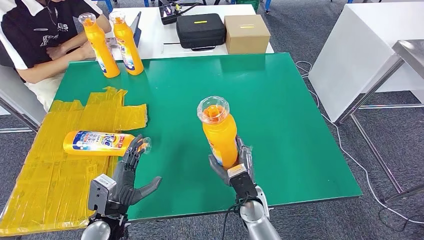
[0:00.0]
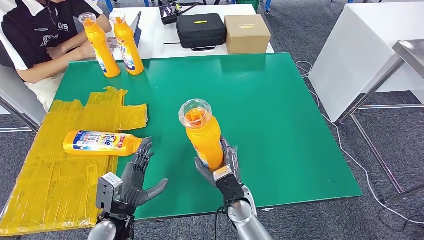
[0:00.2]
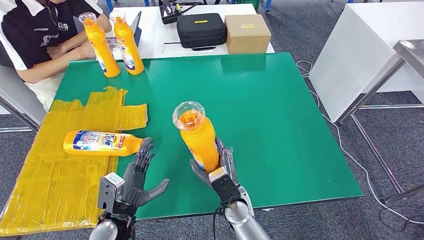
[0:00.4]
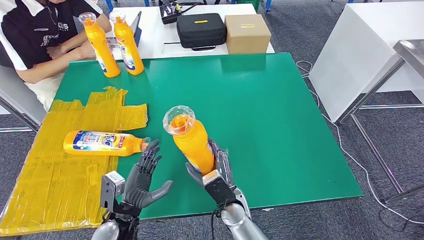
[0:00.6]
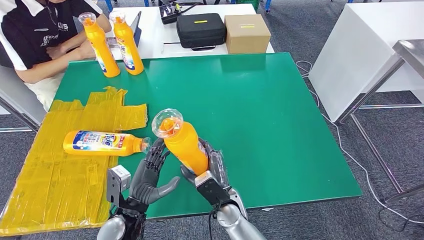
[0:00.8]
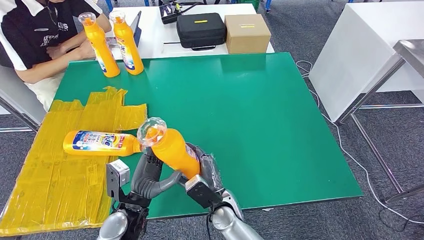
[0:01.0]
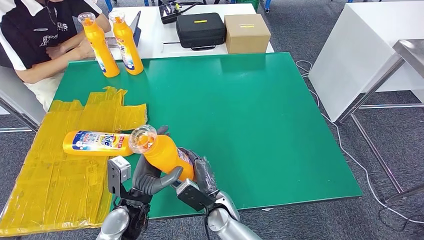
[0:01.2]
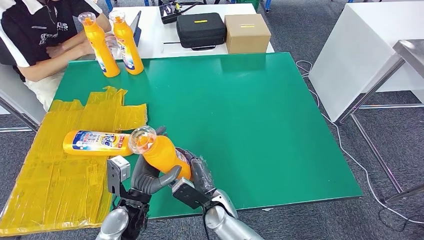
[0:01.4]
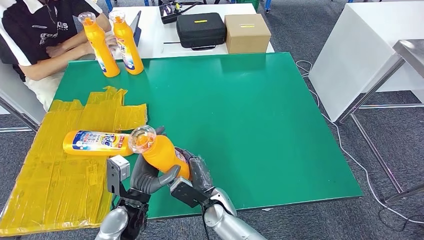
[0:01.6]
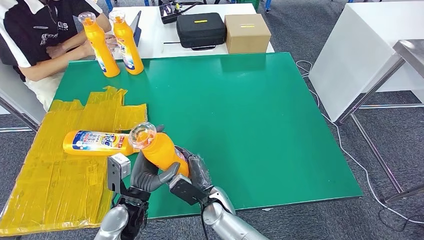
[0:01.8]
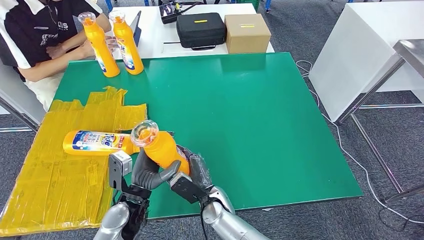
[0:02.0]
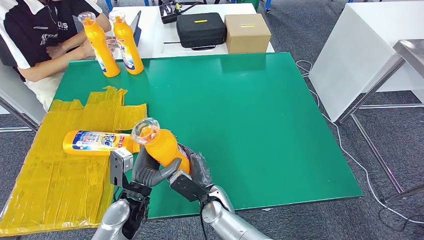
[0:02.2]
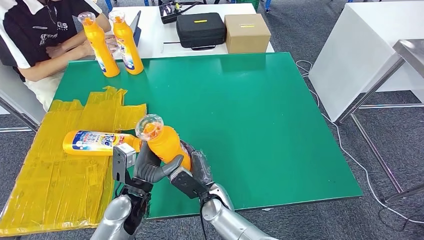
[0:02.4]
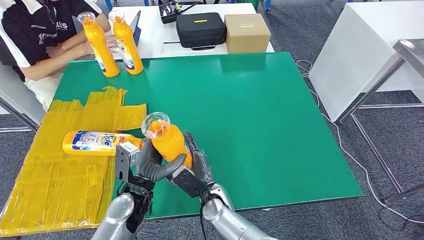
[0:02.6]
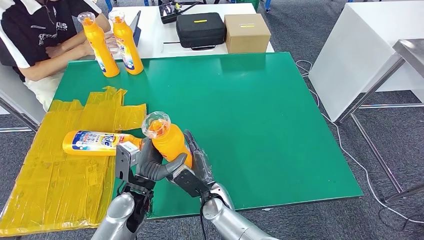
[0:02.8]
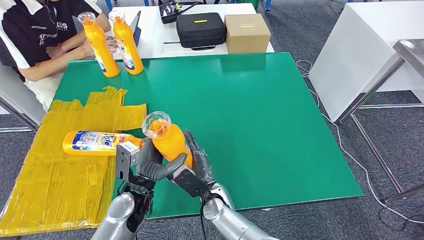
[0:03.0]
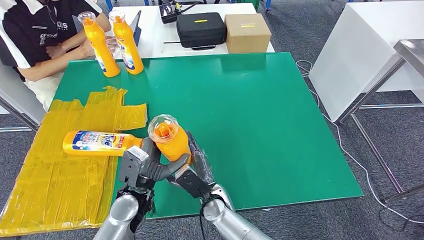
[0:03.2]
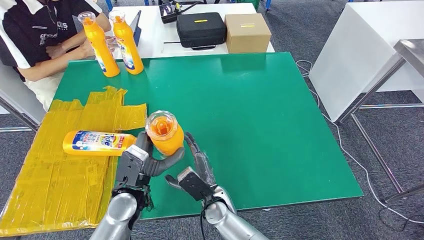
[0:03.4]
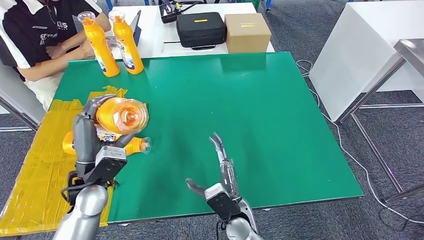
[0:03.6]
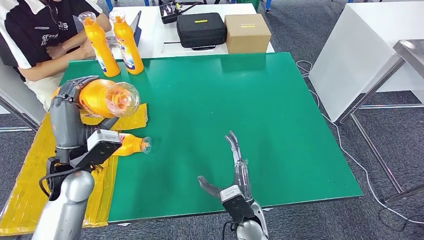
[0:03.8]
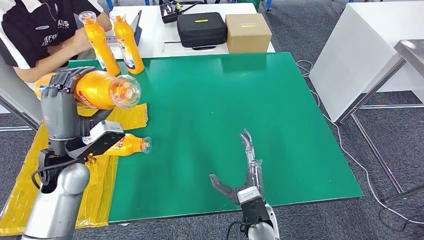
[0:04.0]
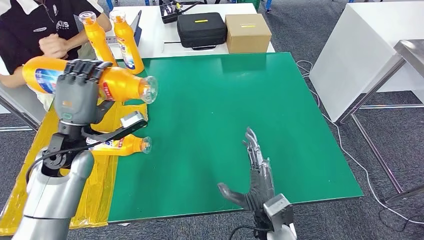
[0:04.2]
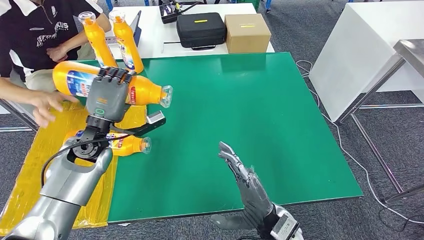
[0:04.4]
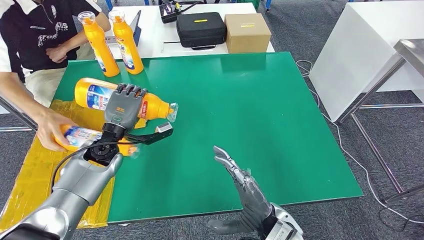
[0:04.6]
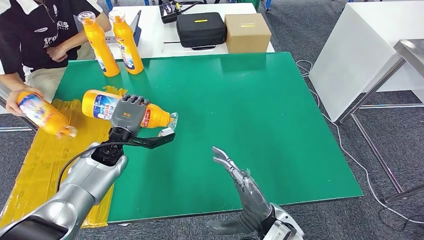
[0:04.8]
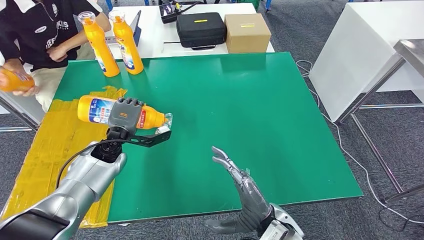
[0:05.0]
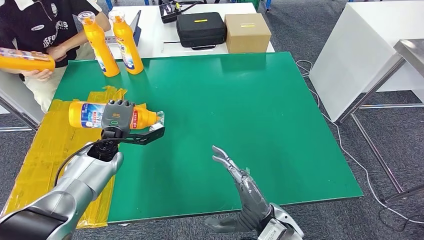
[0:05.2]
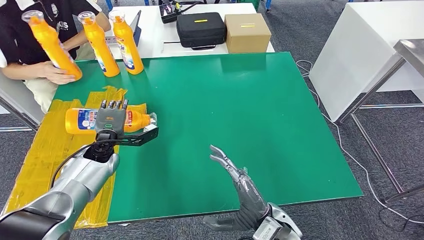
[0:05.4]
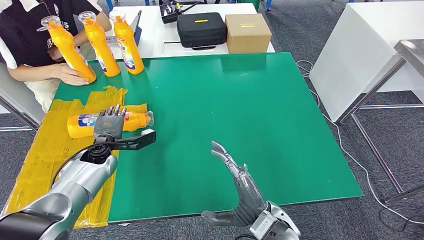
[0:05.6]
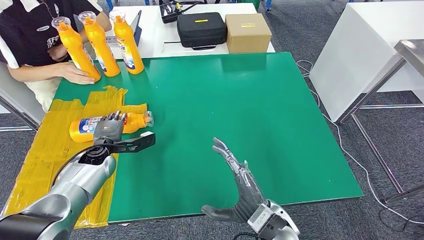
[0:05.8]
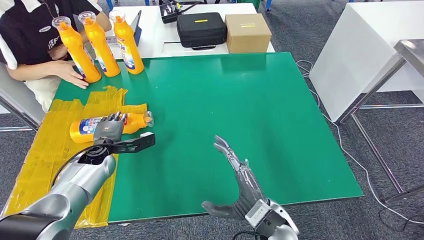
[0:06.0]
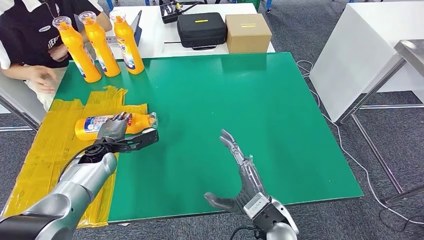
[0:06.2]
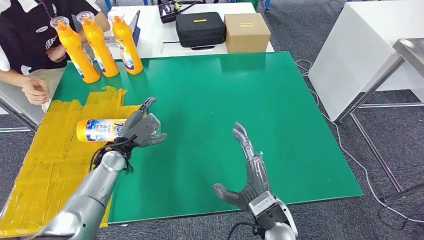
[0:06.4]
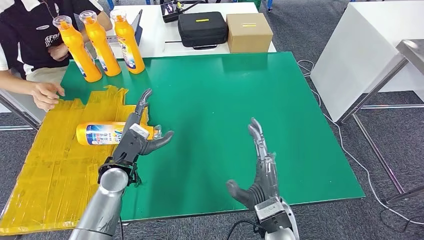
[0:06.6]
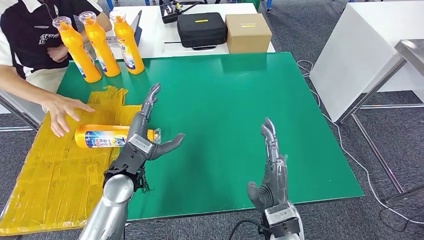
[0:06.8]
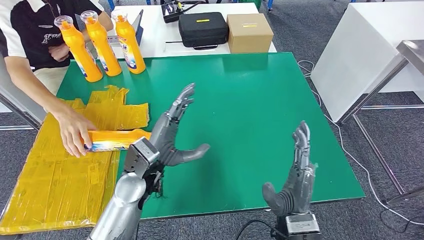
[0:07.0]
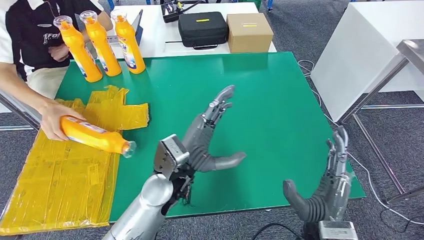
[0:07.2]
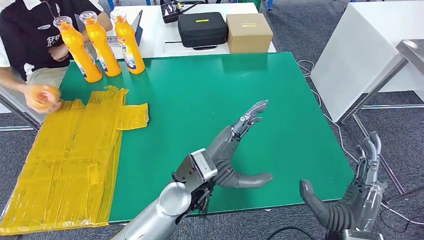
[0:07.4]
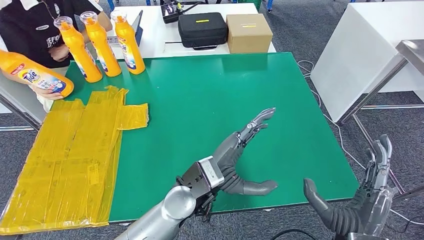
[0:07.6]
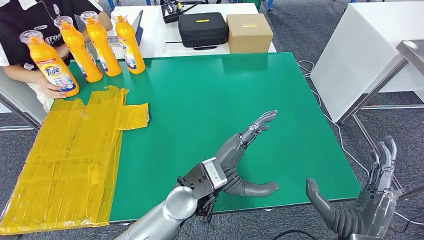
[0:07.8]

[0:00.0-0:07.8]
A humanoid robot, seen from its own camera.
Step, 0:00.0 to 0:04.8: Pick up the bottle from the table.
Step, 0:05.0 to 0:07.8: Flip the bottle to face forward.
0:00.0 to 0:01.6: The right hand is displaced to the left by roughly 10 cm. The left hand heads to the right, covering approximately 5 cm.
0:01.6 to 0:03.2: The hands move only a little.
0:04.6 to 0:06.2: The left hand travels downward by approximately 5 cm.
